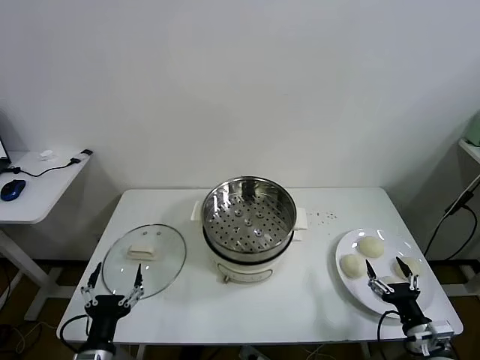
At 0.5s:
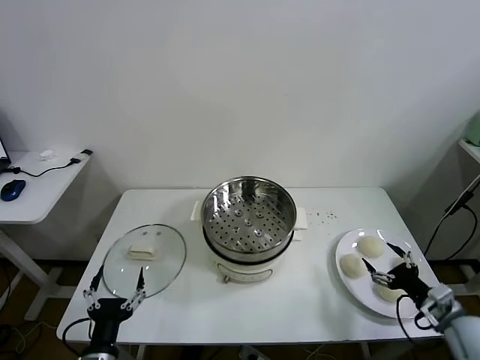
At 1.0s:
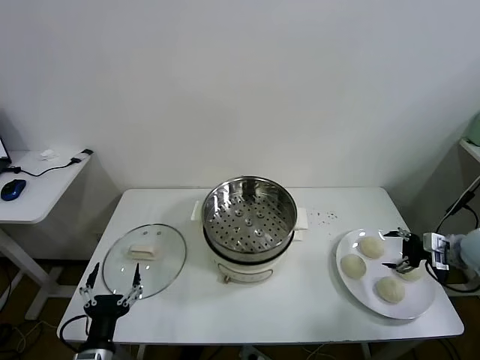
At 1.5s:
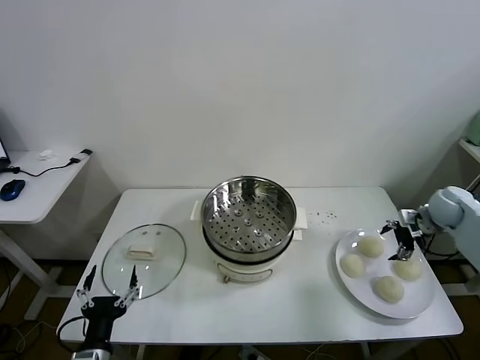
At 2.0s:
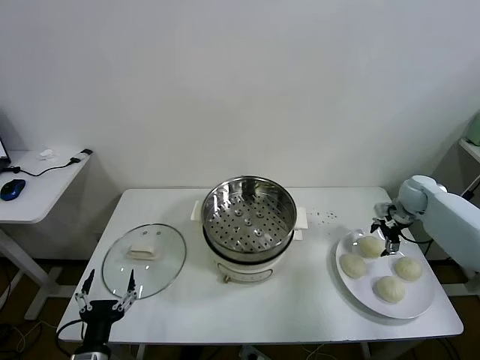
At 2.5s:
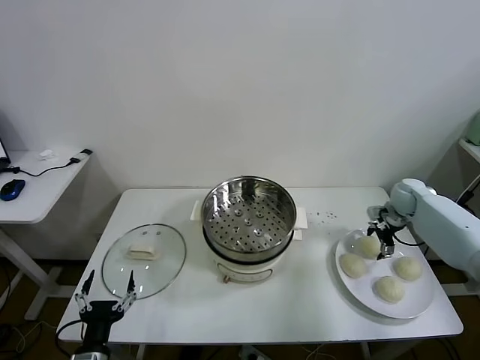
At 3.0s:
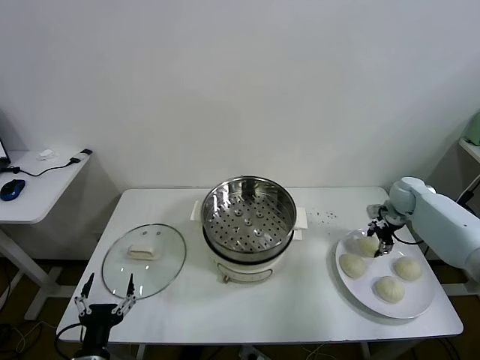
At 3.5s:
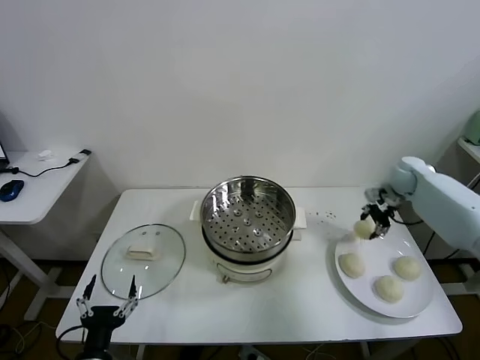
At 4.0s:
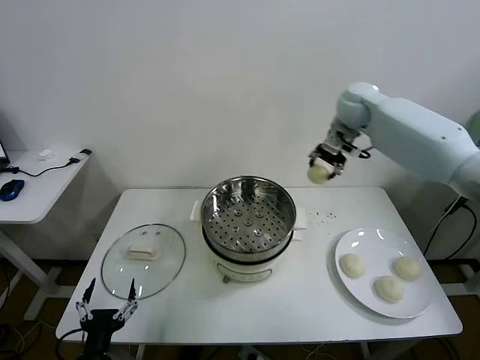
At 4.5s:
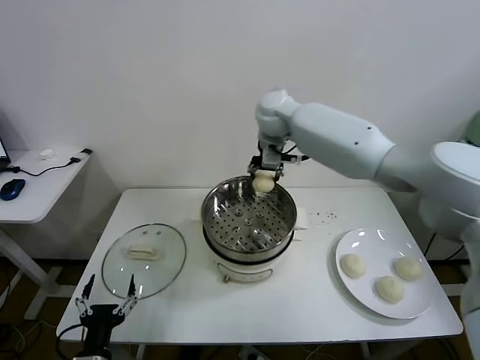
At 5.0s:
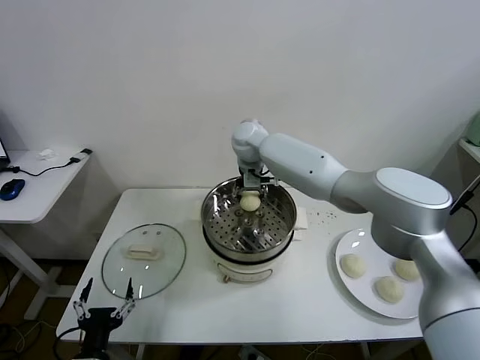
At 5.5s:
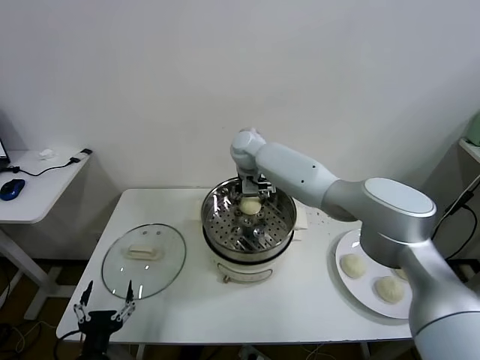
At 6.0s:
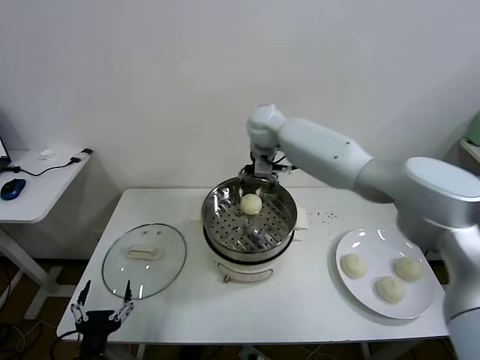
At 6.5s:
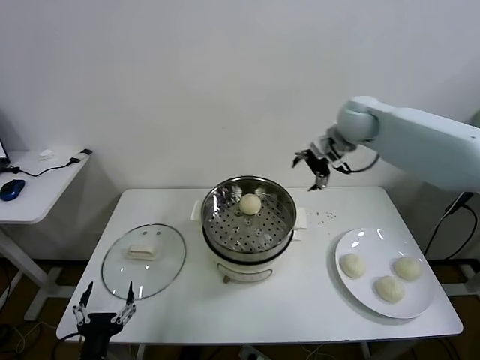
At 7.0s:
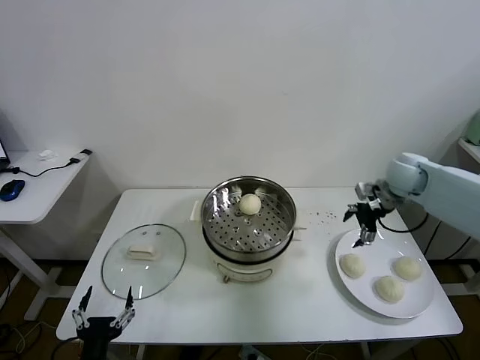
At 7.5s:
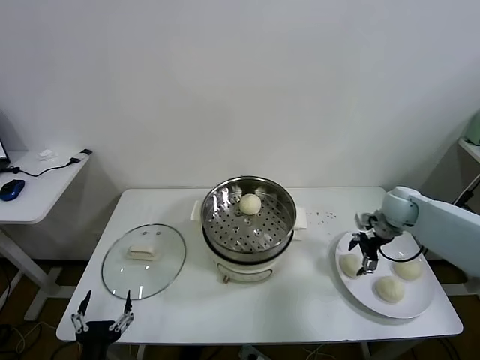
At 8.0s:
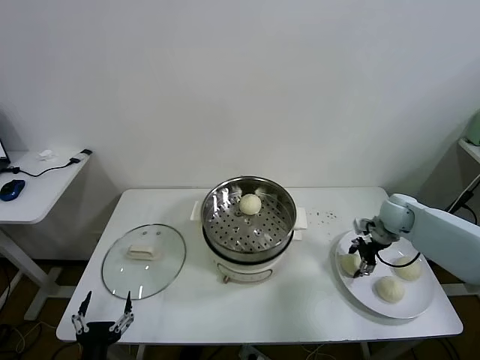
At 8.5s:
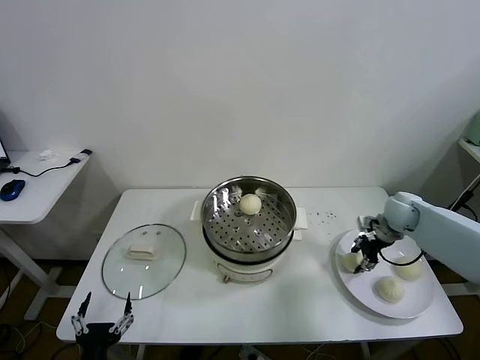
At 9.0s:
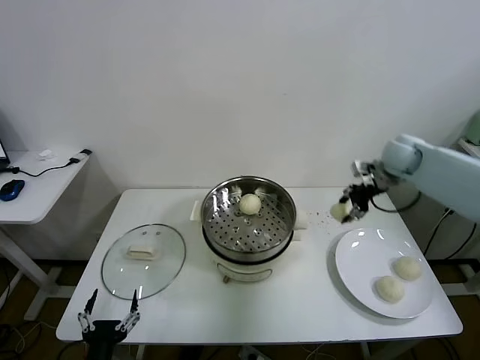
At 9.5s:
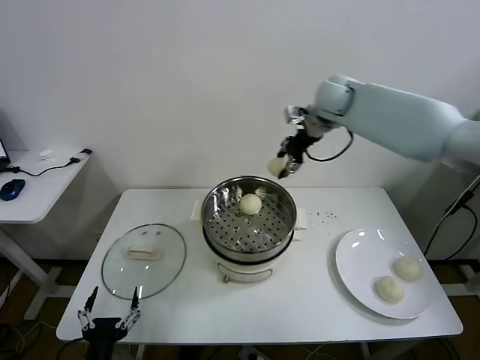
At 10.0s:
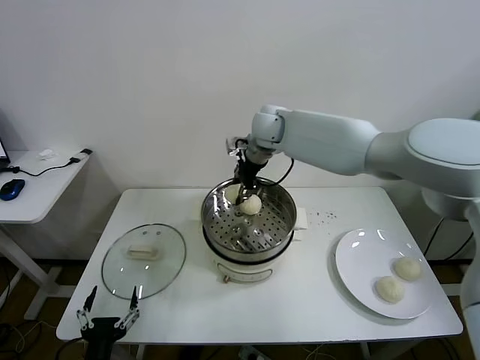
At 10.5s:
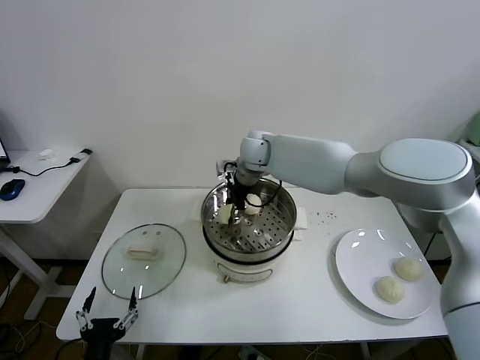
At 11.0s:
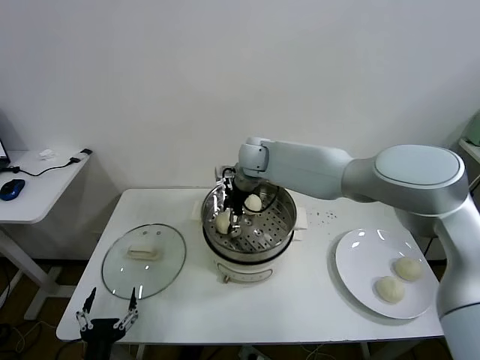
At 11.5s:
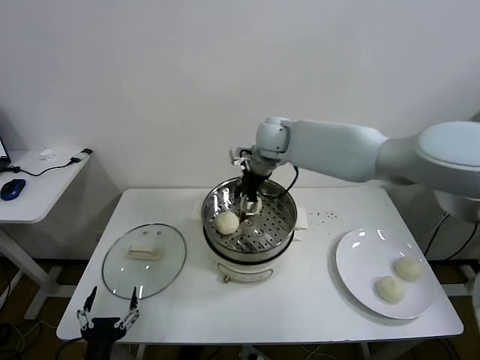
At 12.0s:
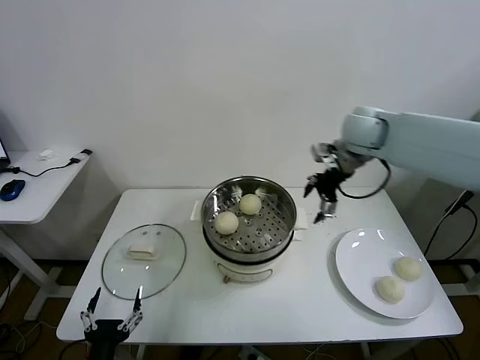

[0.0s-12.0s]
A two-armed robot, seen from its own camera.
Task of the whole recording: take steamed baozi put them in steamer.
Step, 0.0s to 2.5s: Grasp the baozi in the plate with right gripper.
Step, 3.0s to 5.5s: Place the baozi on the steamer with right gripper.
Step, 6.0s to 8.0s: Grasp the baozi in the plate with right gripper.
Step, 8.5s to 11.0s: Place the baozi on the steamer with right gripper.
2.0s to 4.0s: The right gripper shifts approximately 35 cm to the left and upward, and closes up.
4.0s to 6.0s: The right gripper goes roughly 10 cm to the left, and opens its fingers.
6.0s to 8.0s: The right gripper moves to the right and downward, about 40 cm, and closes up.
8.0s to 10.0s: The right gripper heads to the left and upward, covering approximately 40 cm.
10.0s to 12.0s: The right gripper goes approximately 25 cm to the right, and opens its fingers.

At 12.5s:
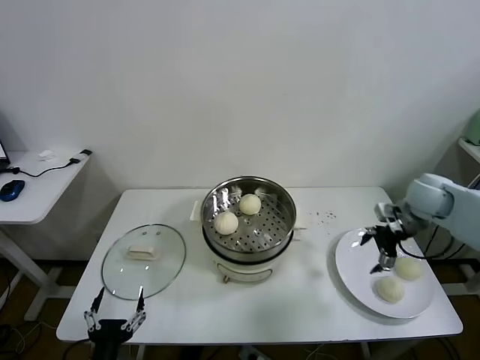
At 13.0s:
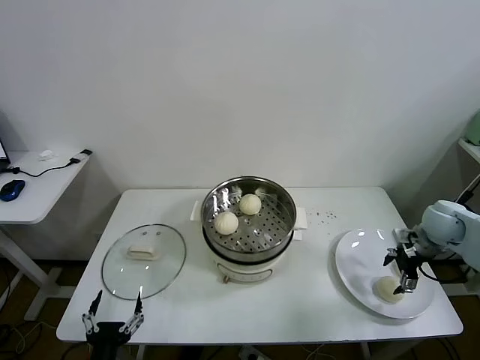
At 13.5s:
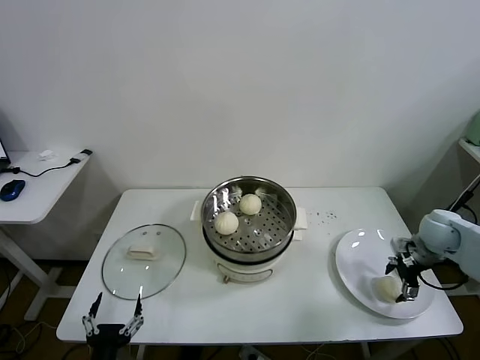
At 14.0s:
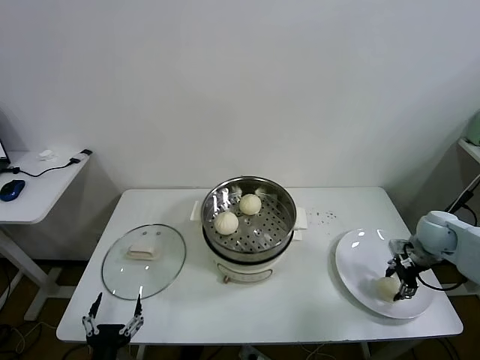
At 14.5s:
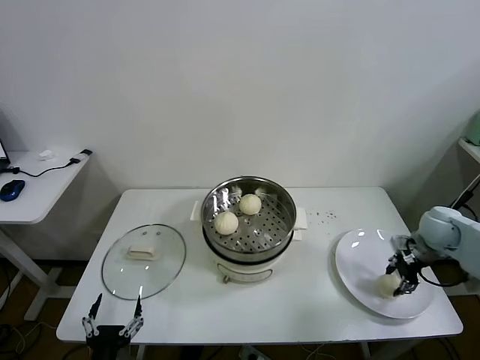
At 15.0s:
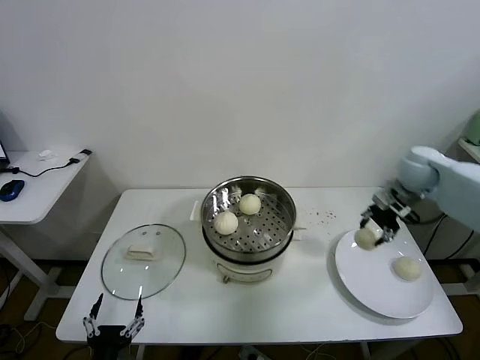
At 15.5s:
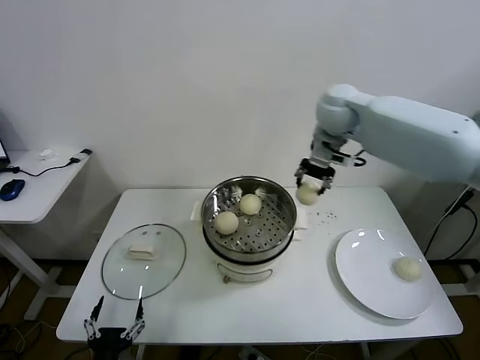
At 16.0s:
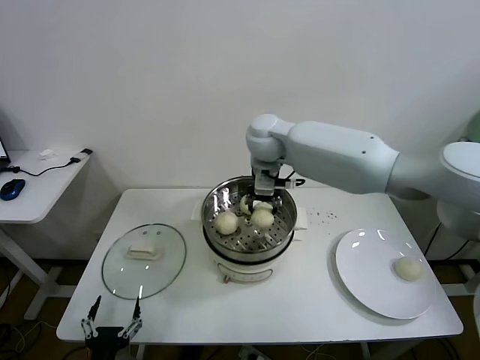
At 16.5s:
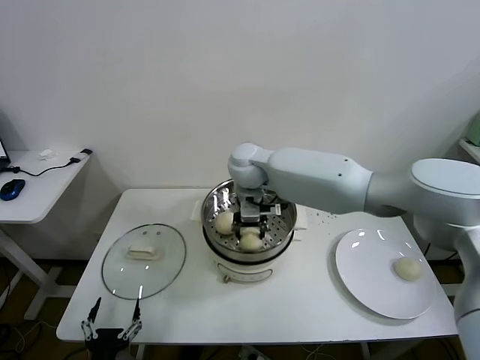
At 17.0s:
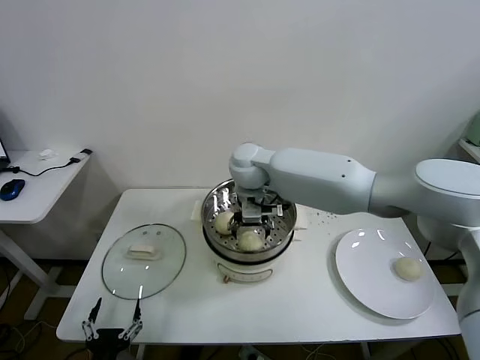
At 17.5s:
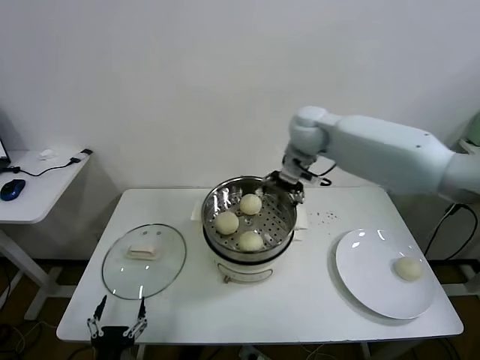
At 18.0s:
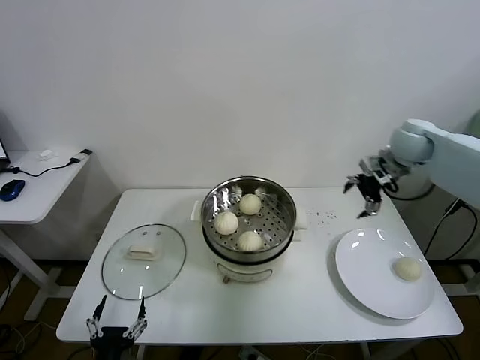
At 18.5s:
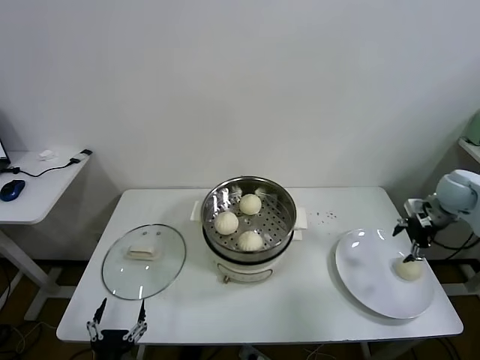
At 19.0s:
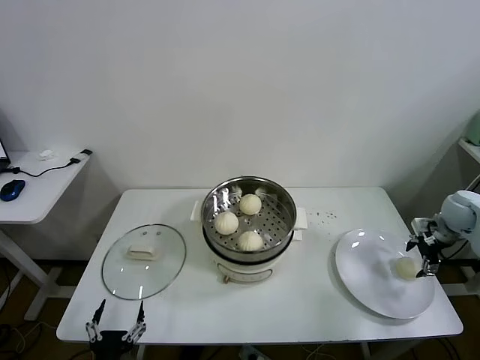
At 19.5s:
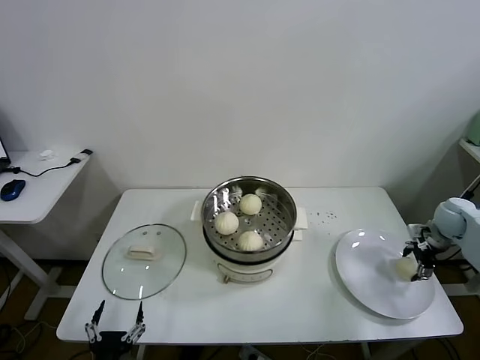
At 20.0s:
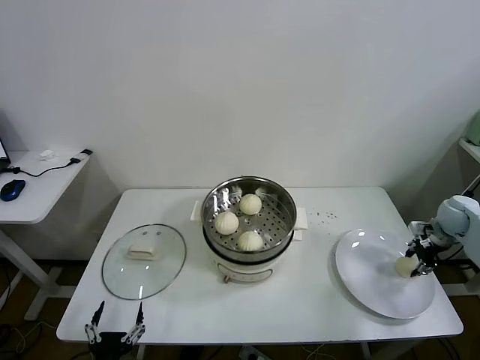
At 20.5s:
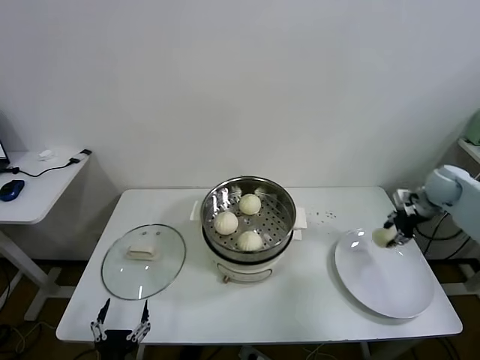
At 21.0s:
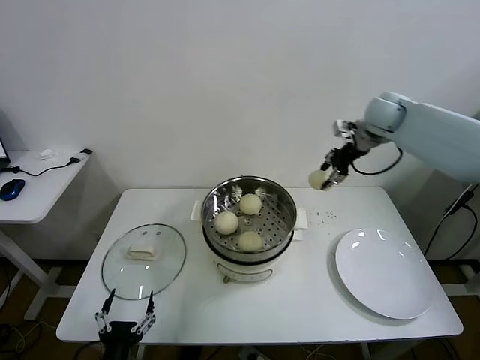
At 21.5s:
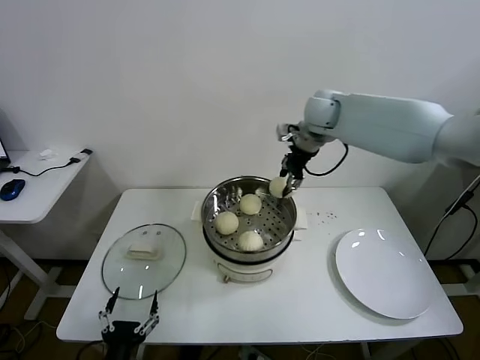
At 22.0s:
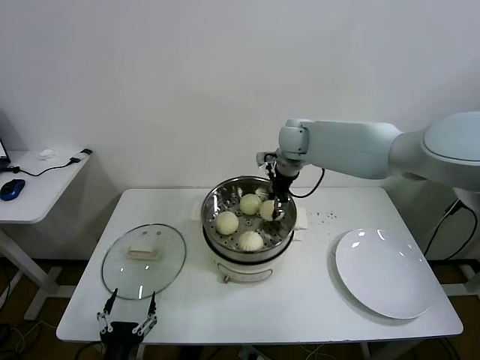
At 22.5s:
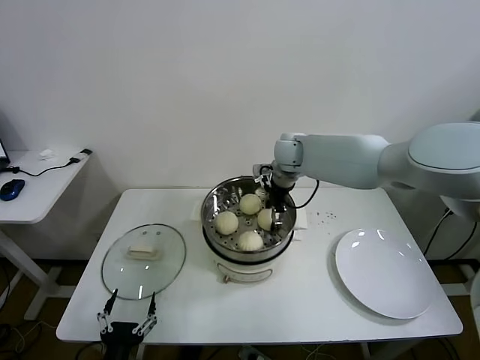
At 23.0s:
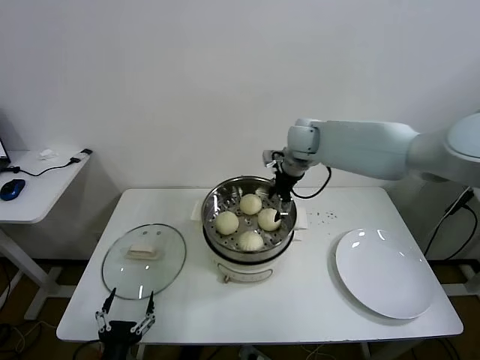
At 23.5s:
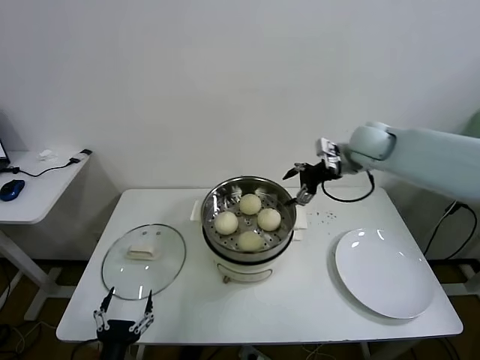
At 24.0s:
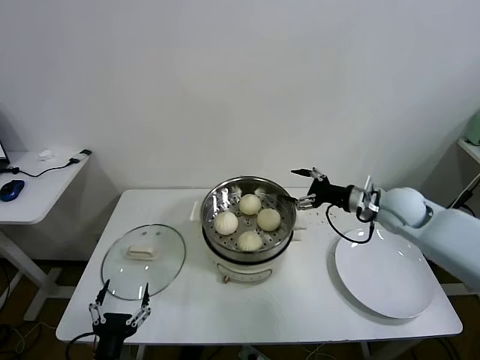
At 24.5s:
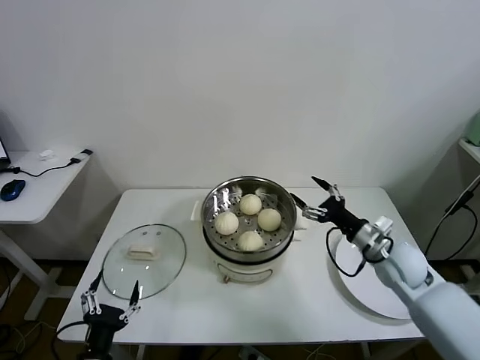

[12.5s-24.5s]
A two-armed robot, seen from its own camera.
Task of the whole recording: take steamed baozi put them in steamer.
Step, 14.0s to 16.5s: Place the baozi on the steamer with right gripper.
Step, 17.0s to 19.5s: Grasp the baozi in the plate with right gripper.
Step, 20.0s to 22.5s: Place the baozi on the steamer with right gripper.
12.5s to 14.5s: The right gripper shifts approximately 5 cm downward, and closes up.
14.5s to 16.5s: The right gripper moves to the left, roughly 50 cm.
16.5s to 18.5s: The right gripper goes roughly 50 cm to the right, and opens up.
18.5s to 20.5s: The right gripper travels downward and back again, some 10 cm each way, and closes.
20.5s to 22.5s: The right gripper moves to the left, approximately 40 cm, and opens.
22.5s to 24.5s: The right gripper moves backward, to the right and downward, some 35 cm.

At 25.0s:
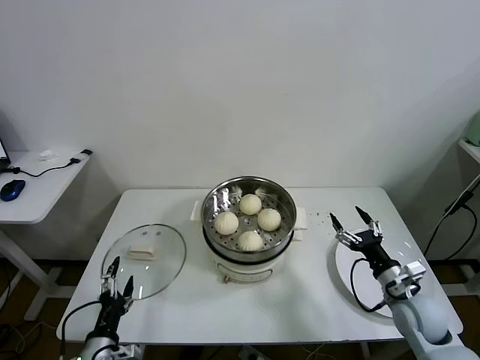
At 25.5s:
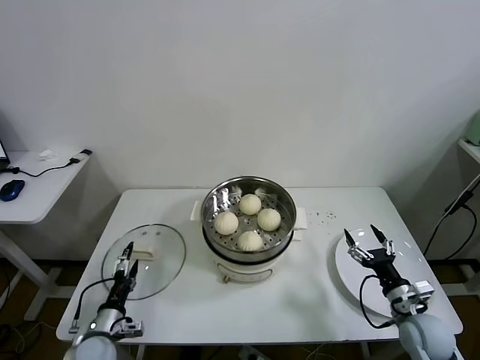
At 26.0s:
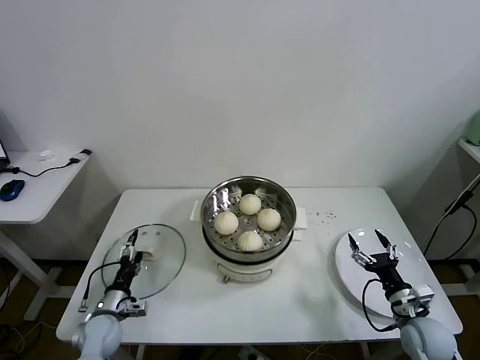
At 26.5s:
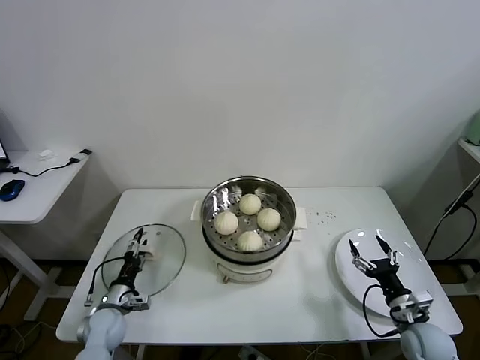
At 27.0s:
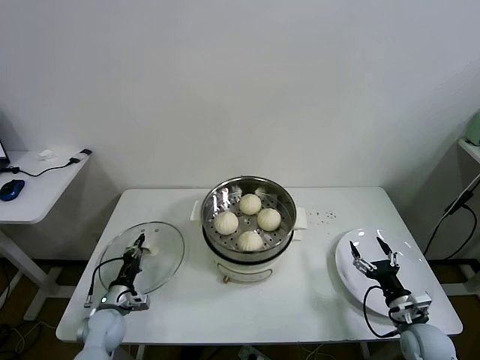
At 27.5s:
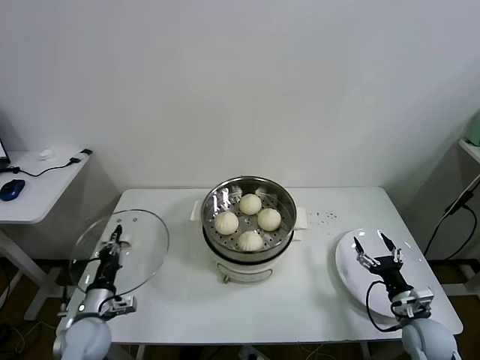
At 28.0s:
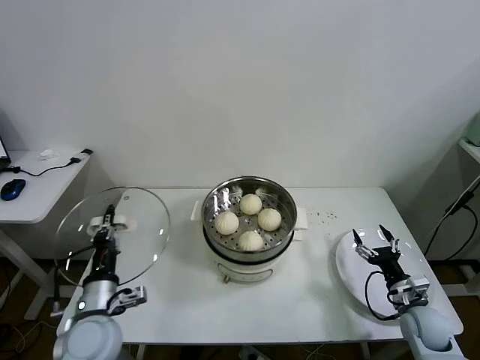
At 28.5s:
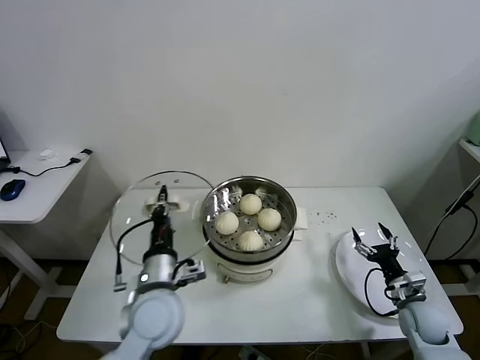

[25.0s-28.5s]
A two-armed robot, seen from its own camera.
Task of the whole recording: take steamed baozi put them in steamer.
Step, 25.0s to 27.0s: Grasp the pot lid with left gripper.
25.0s to 27.0s: The left gripper is displaced forward and downward by about 20 cm, and closes its fingers; the right gripper moves downward, roughly 5 cm.
27.0s to 28.5s: The left gripper is displaced upward and to the right by some 30 cm, while the right gripper shifts by roughly 5 cm.
